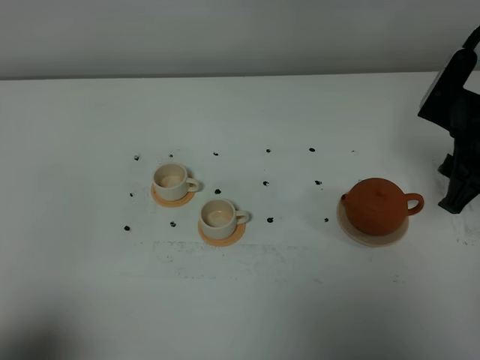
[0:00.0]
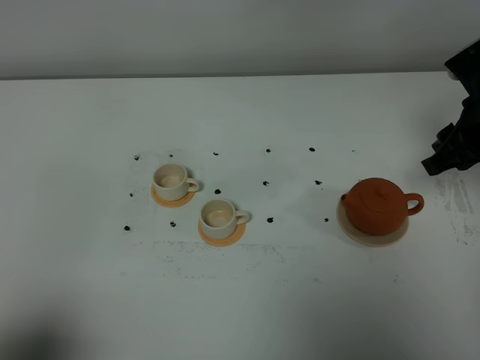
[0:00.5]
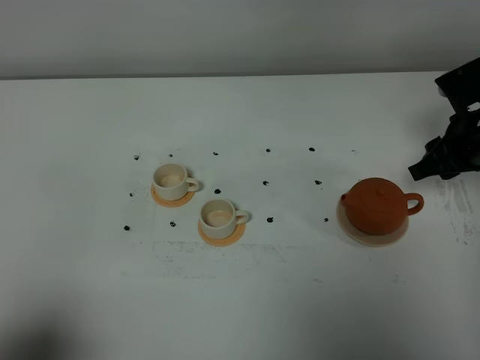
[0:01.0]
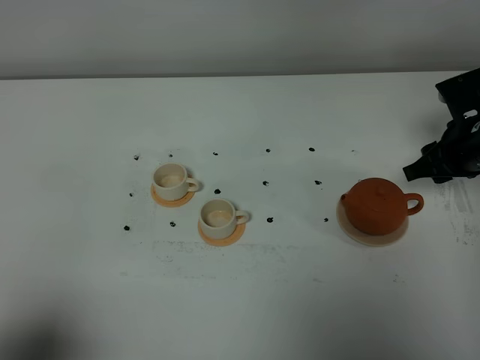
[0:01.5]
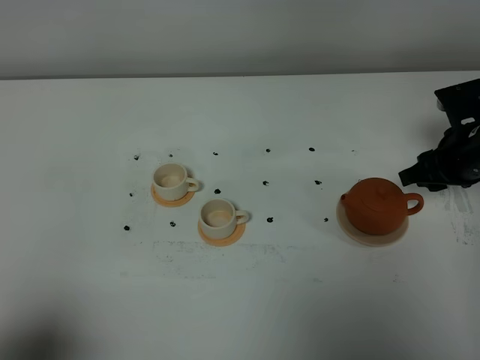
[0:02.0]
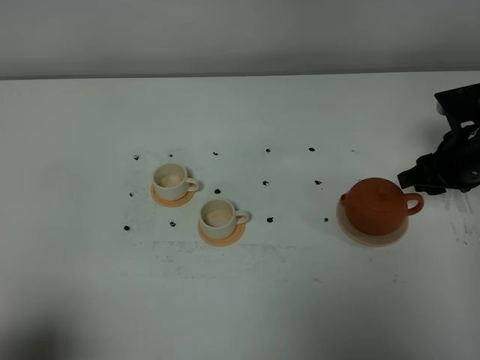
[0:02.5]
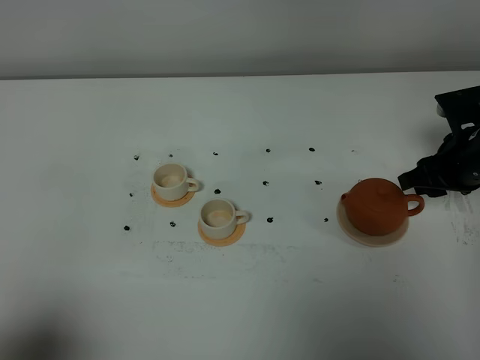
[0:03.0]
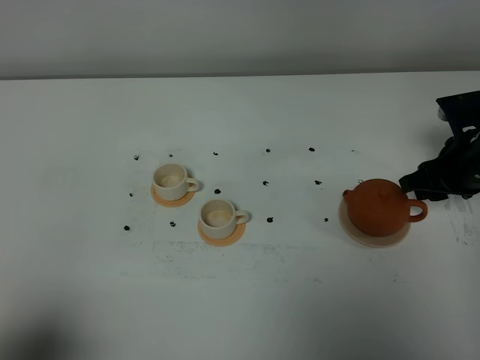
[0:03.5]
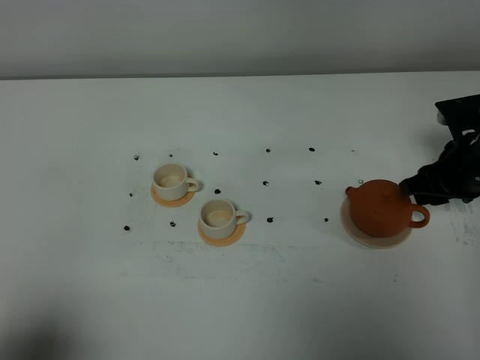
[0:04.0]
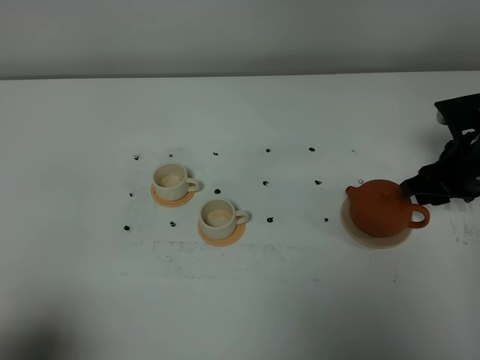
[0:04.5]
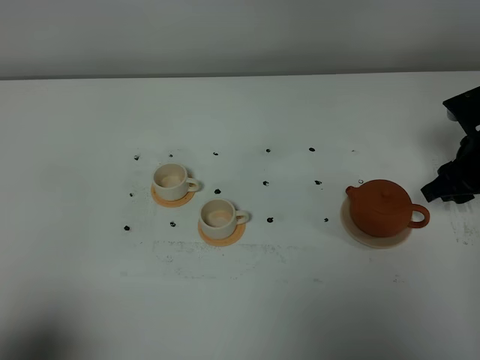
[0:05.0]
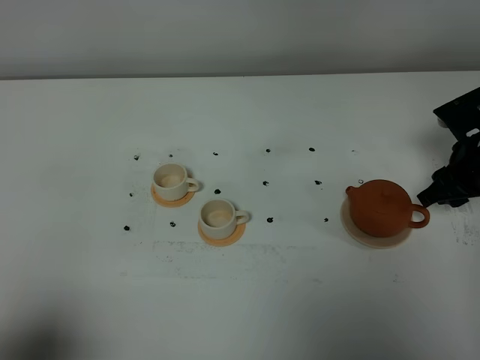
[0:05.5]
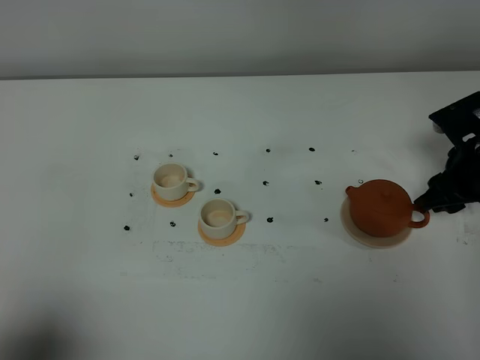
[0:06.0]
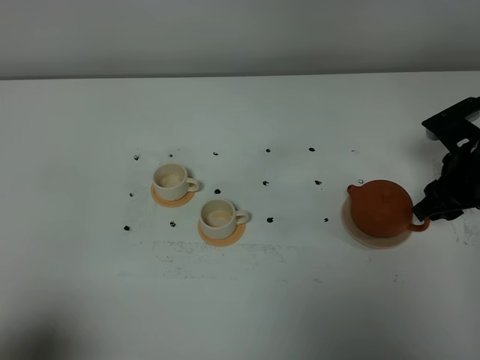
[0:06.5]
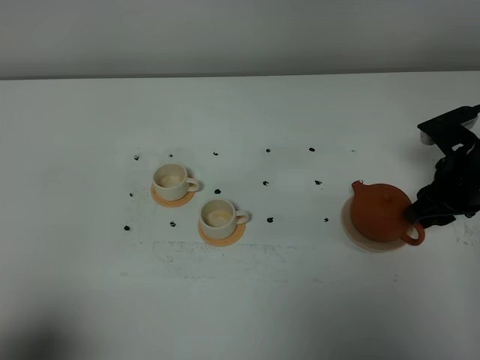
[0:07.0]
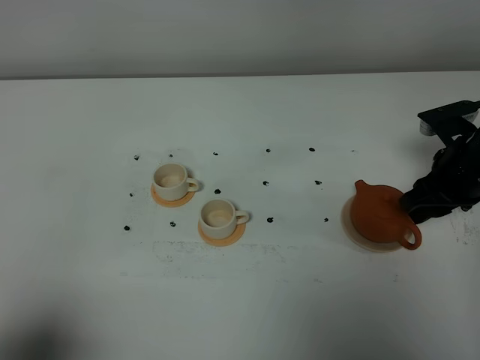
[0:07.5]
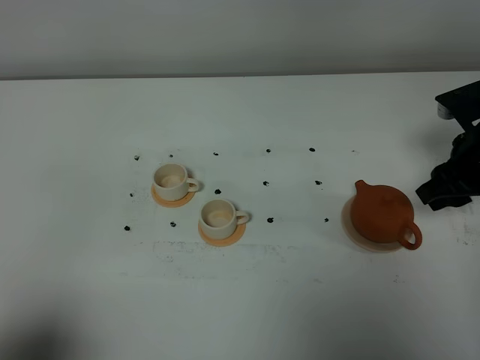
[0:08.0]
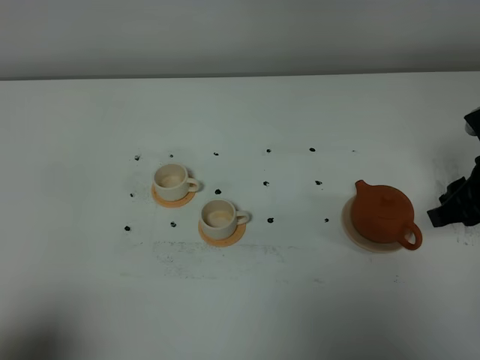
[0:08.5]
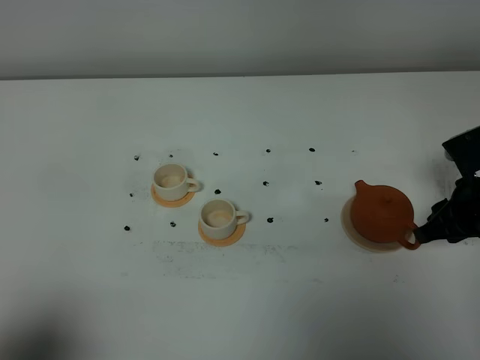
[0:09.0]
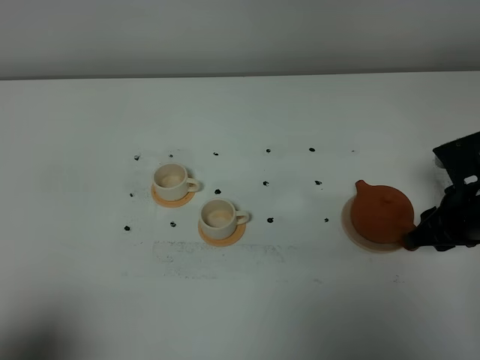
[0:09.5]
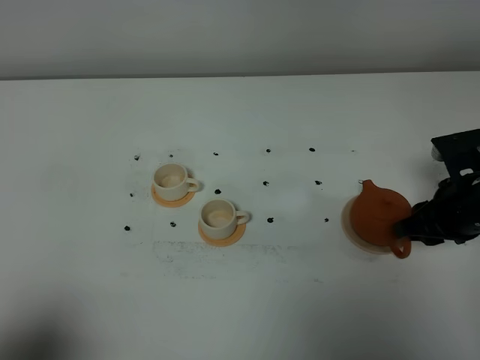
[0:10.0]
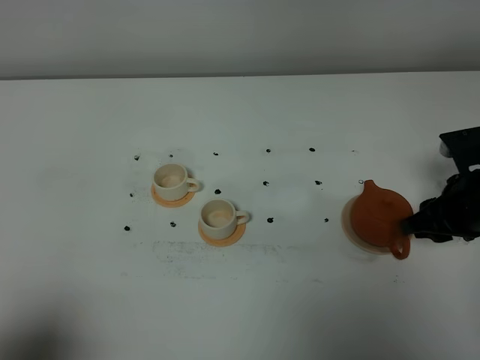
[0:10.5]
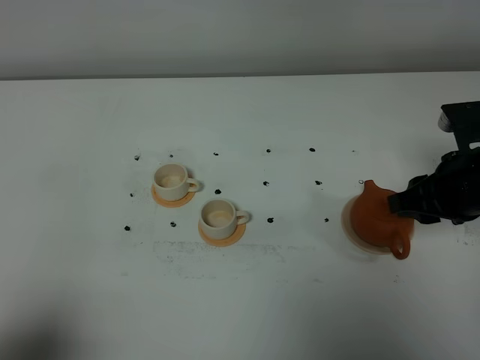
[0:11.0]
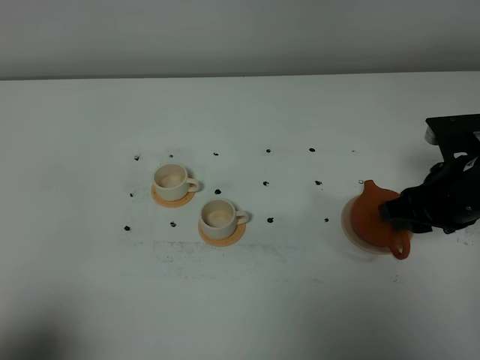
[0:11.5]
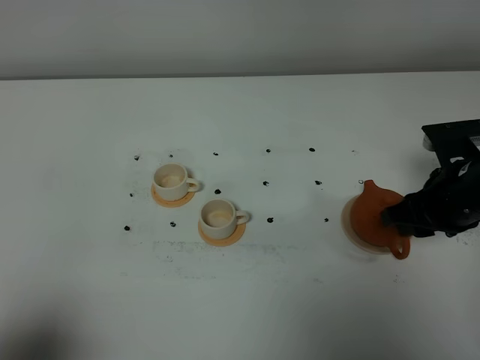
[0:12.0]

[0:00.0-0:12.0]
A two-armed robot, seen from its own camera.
Task of the whole recording: grasp the brown teapot and pour the tea into the two white teacups one by one, put the brown teapot back in its original place.
0:00.0 to 0:02.0: The right gripper shifts roughly 10 cm downward.
0:02.0 to 0:06.0: The grippers make only small movements.
0:06.0 to 0:08.0: The right gripper moves some 5 cm.
0:08.0 to 0:10.0: The right gripper heads downward, covering some 5 cm.

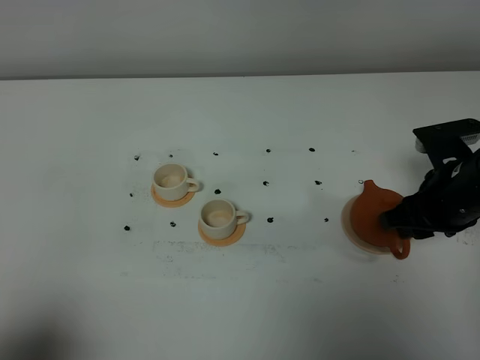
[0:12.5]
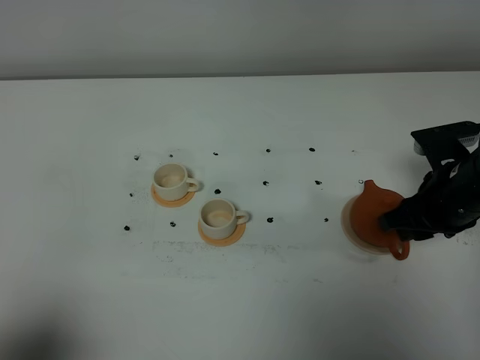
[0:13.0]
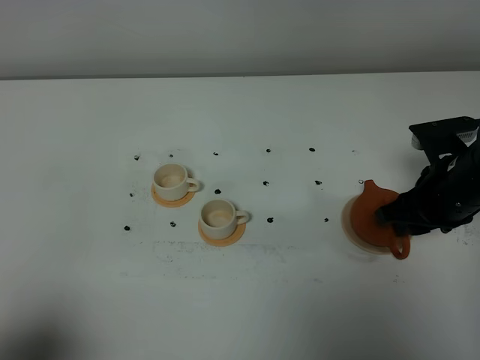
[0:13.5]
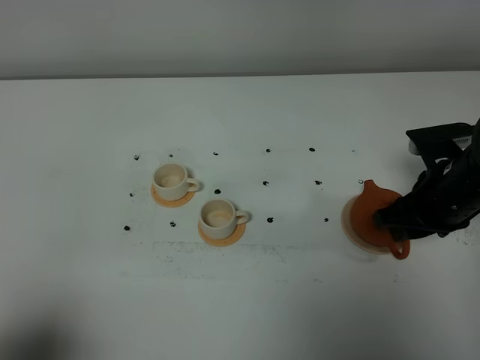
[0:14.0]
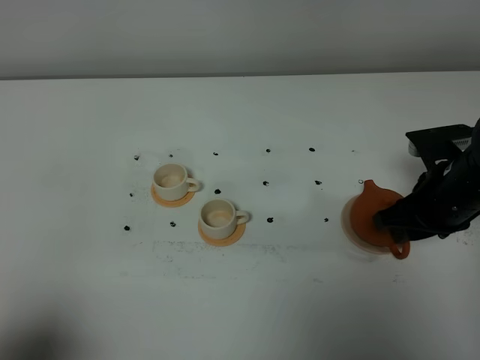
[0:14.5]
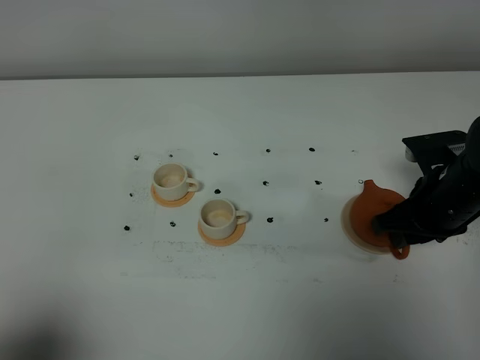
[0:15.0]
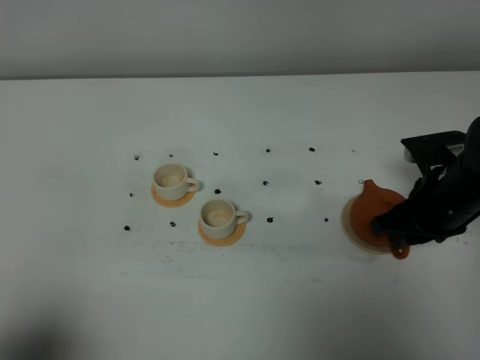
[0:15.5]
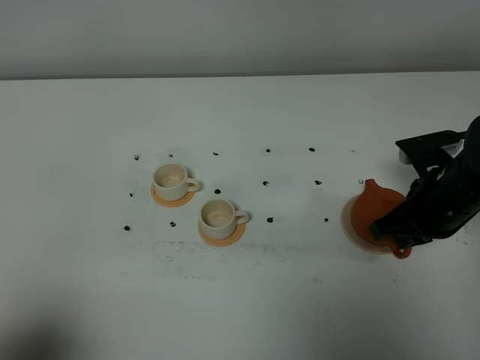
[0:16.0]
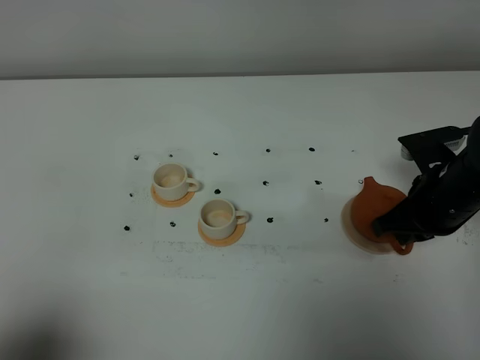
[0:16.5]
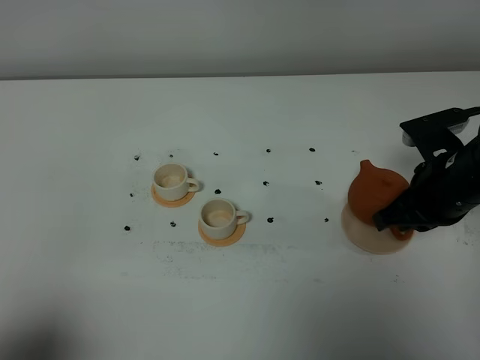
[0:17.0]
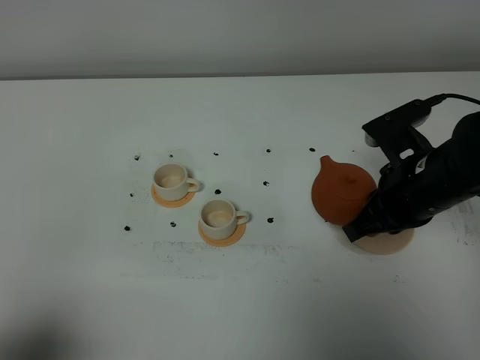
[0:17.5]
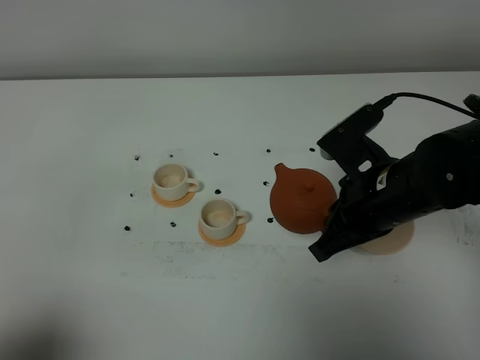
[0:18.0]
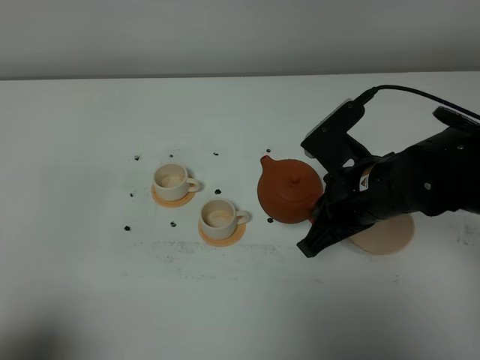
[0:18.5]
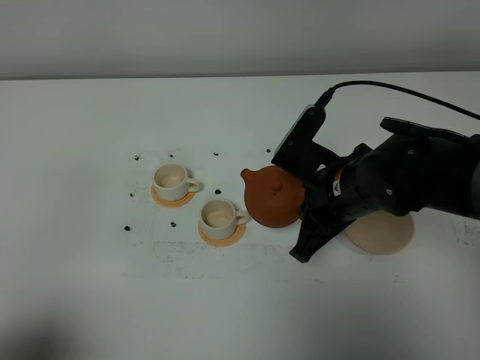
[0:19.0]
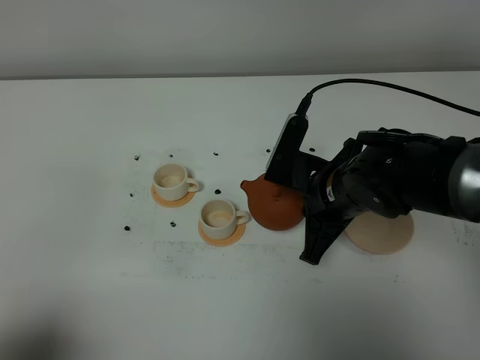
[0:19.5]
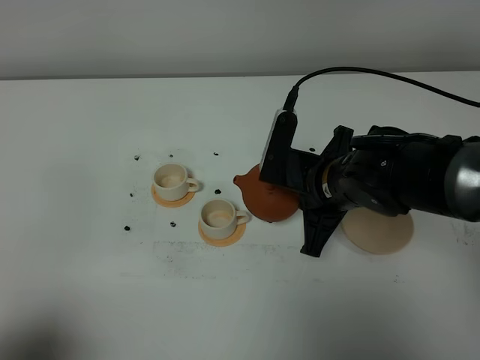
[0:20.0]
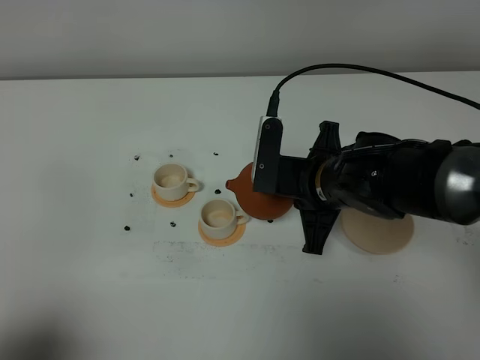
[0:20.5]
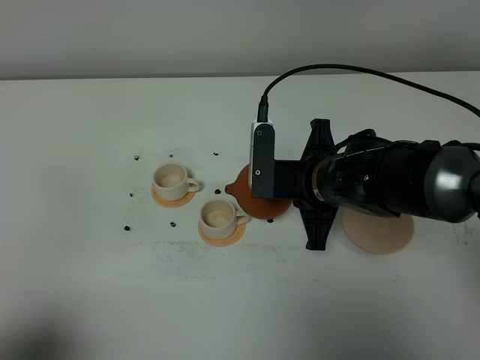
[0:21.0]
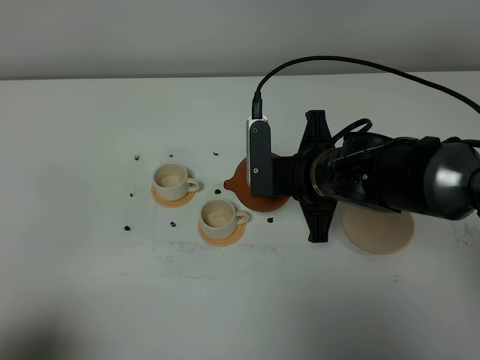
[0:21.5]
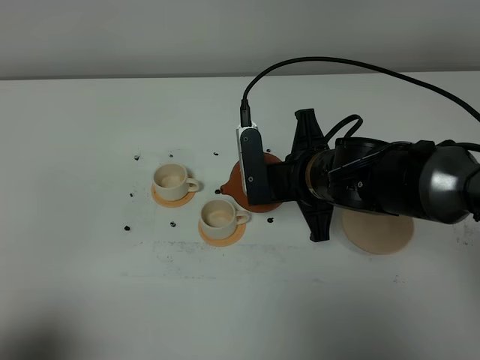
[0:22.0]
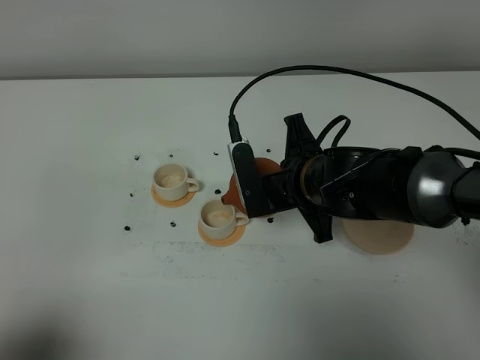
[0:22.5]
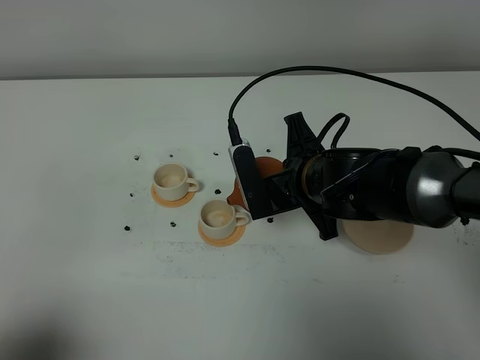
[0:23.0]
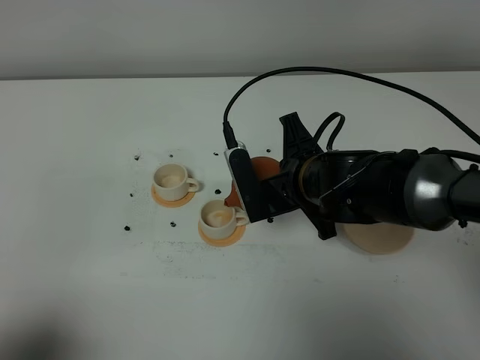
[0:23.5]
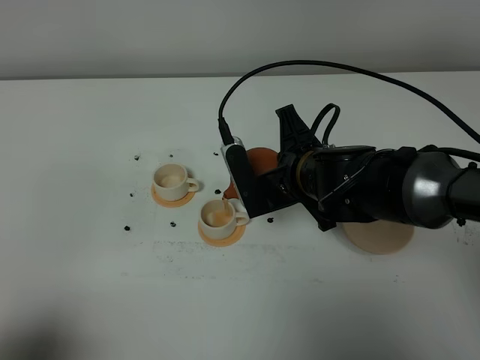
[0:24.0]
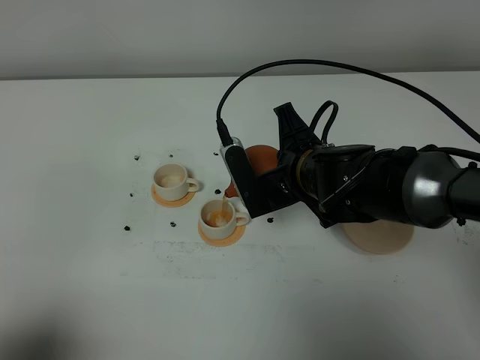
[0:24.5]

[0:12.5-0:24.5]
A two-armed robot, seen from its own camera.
Task of the whole recording: grasp the brown teapot and pour the tea into the two white teacups one by one, put the brown teapot back in its original place.
Step, 0:12.5 to 0:16.5: Pick up the teapot with the right gripper.
0:12.5 to 0:14.5: Neither gripper changes place.
0:14.5 to 0:16.5: The right gripper closes up.
0:16.5 to 0:18.5: The right gripper heads to the left, covering some 10 cm.
0:18.5 to 0:20.5: The right gripper ends up some 5 cm from where it was.
0:22.5 to 0:24.5: There are only small adjustments of the grippers.

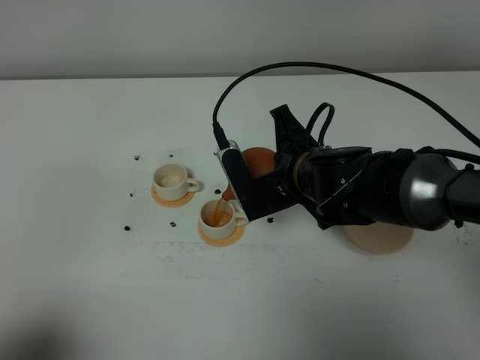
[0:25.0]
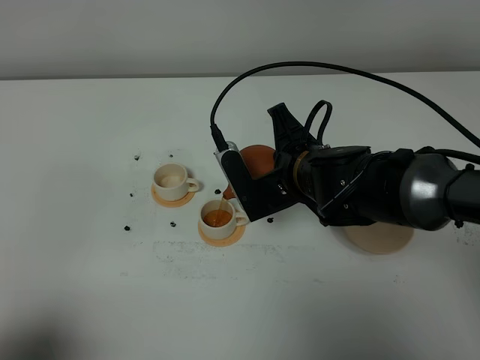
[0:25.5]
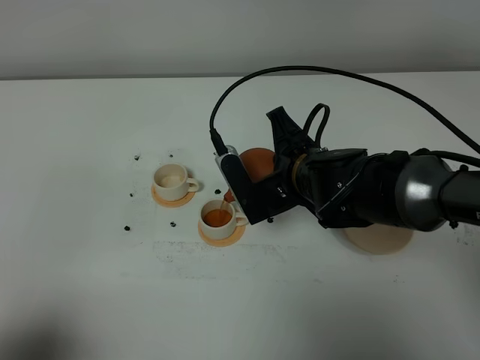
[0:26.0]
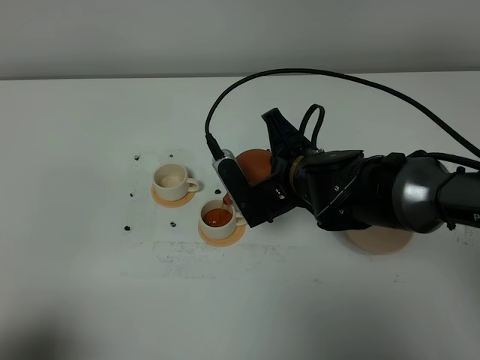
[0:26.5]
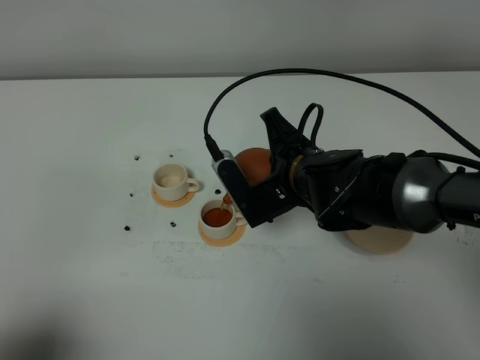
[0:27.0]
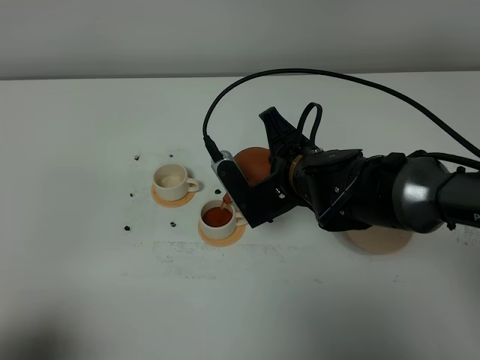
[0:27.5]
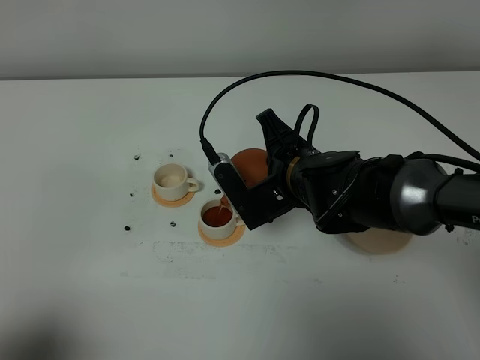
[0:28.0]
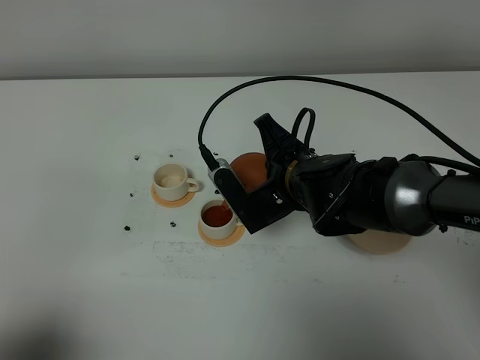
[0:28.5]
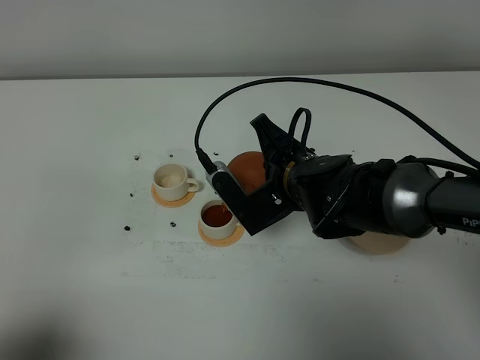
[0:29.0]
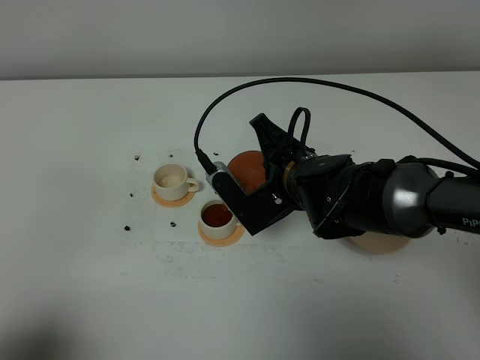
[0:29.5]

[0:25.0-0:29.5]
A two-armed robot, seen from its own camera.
Task of the whole recording: grasp the brown teapot and pour the tea into the two white teacups one by one, put the brown teapot back in its original place.
0:25.0 to 0:29.5: The grippers make only small movements.
